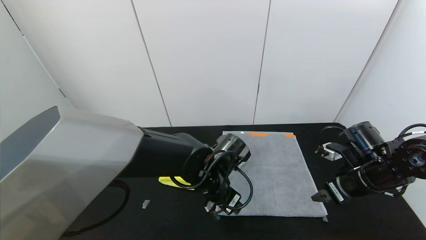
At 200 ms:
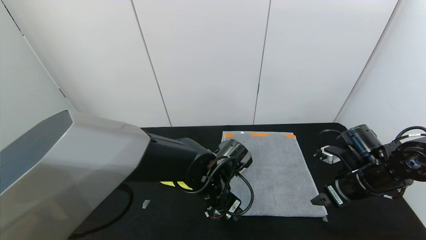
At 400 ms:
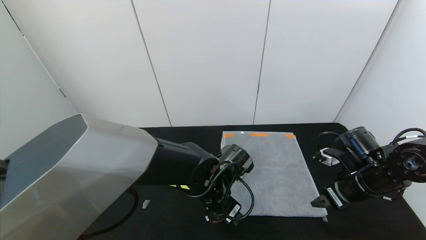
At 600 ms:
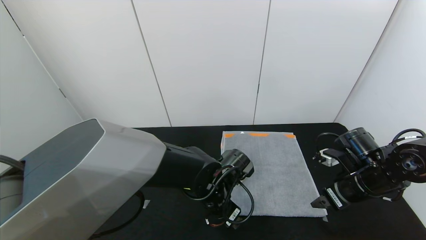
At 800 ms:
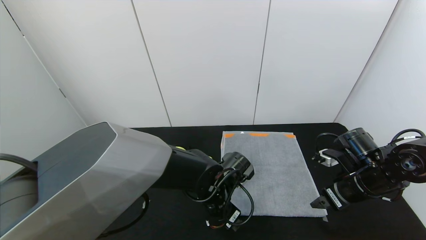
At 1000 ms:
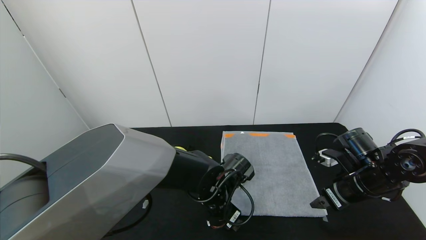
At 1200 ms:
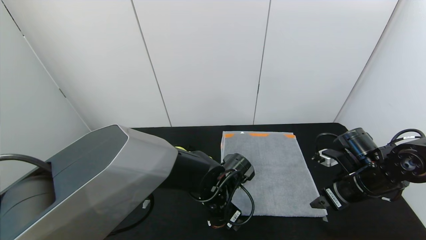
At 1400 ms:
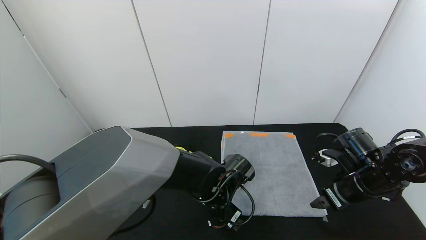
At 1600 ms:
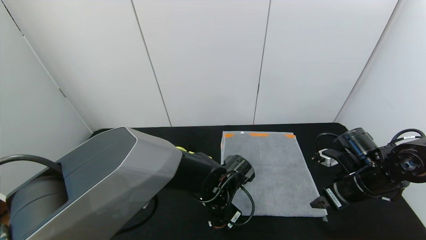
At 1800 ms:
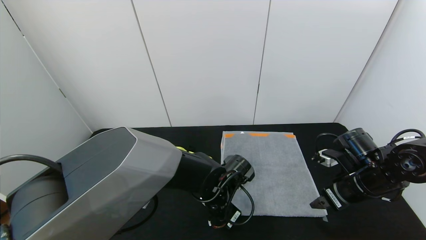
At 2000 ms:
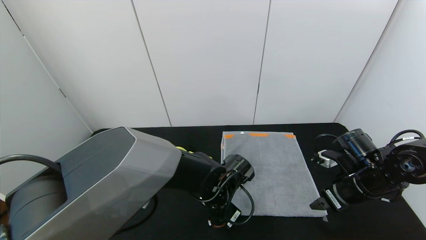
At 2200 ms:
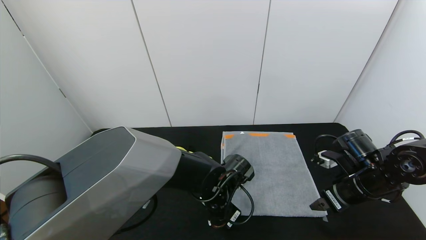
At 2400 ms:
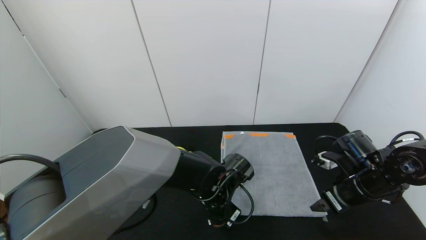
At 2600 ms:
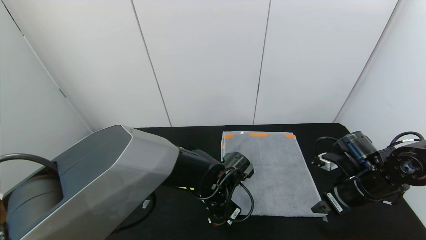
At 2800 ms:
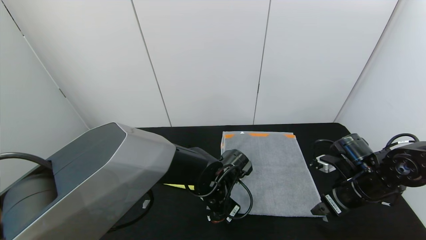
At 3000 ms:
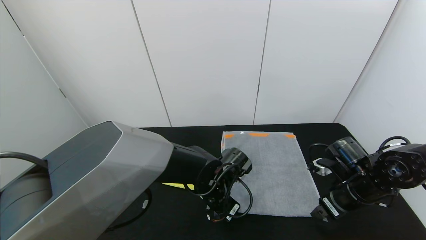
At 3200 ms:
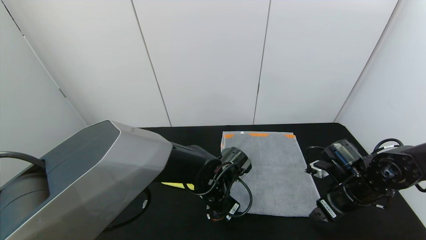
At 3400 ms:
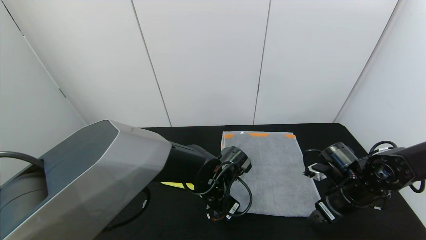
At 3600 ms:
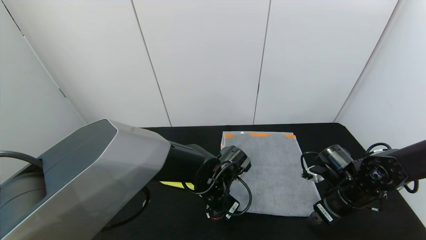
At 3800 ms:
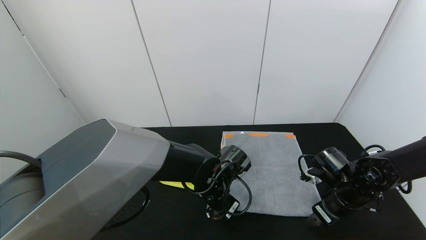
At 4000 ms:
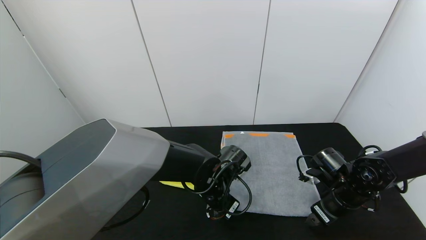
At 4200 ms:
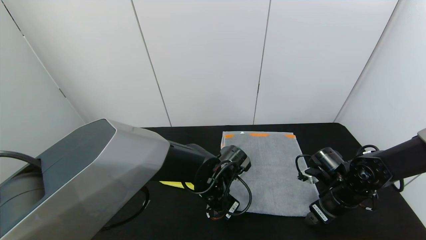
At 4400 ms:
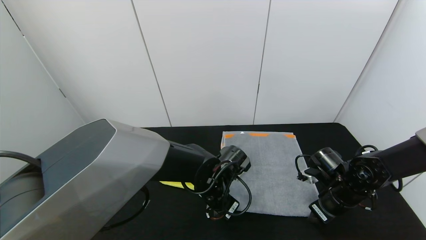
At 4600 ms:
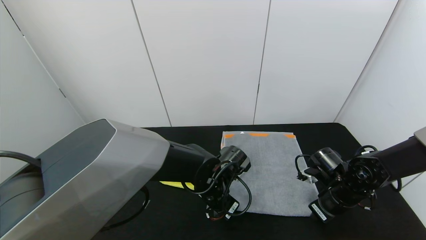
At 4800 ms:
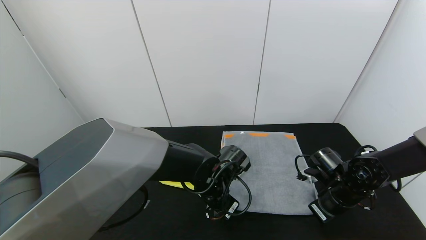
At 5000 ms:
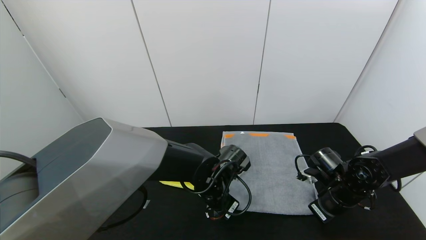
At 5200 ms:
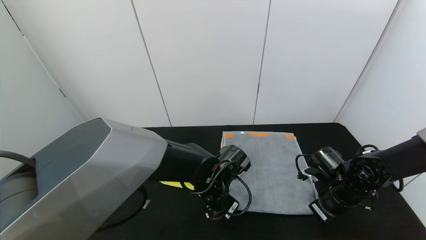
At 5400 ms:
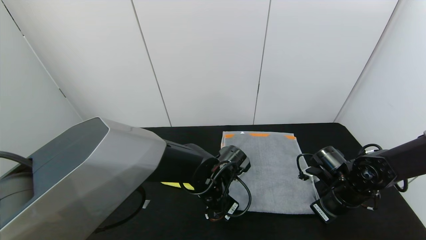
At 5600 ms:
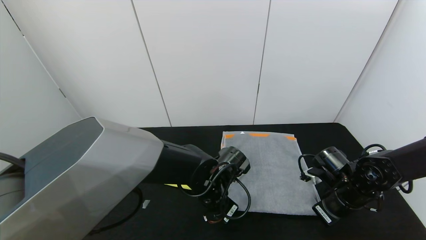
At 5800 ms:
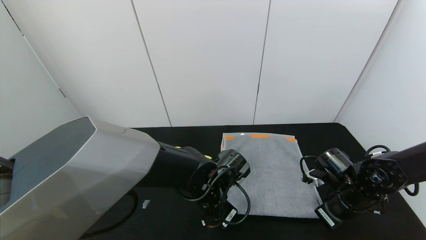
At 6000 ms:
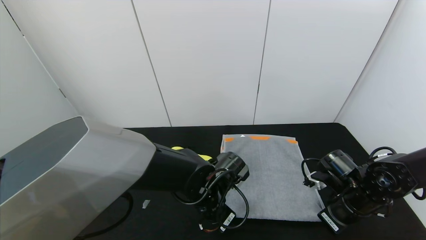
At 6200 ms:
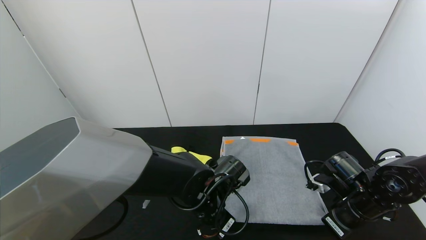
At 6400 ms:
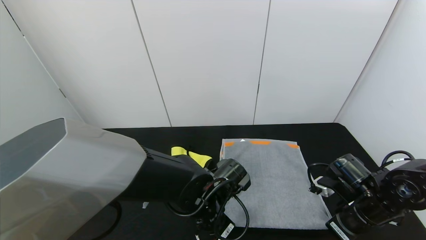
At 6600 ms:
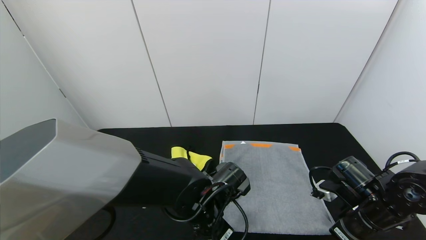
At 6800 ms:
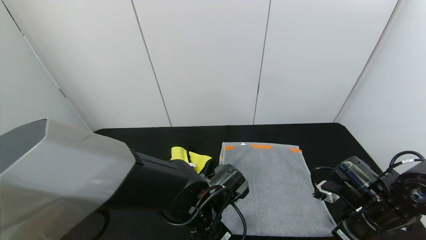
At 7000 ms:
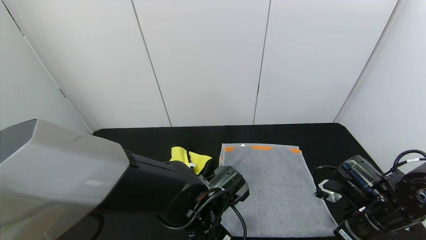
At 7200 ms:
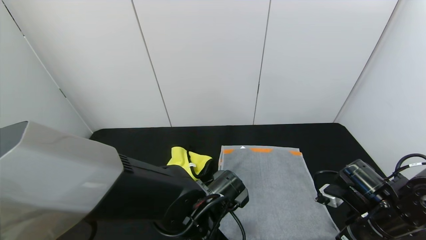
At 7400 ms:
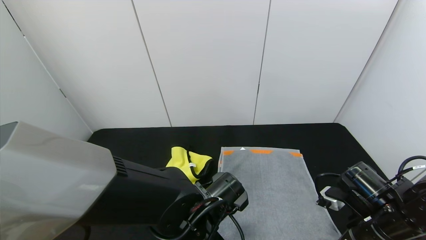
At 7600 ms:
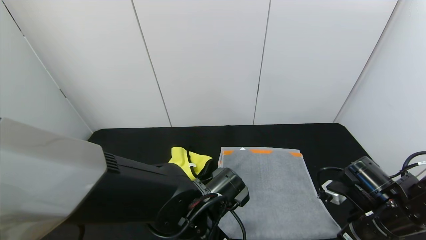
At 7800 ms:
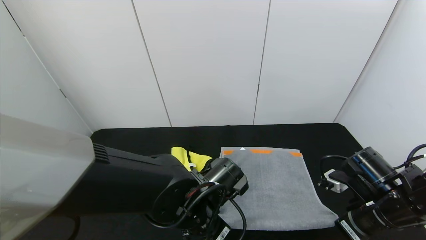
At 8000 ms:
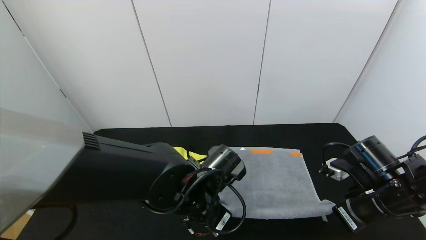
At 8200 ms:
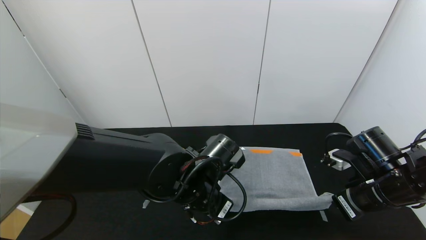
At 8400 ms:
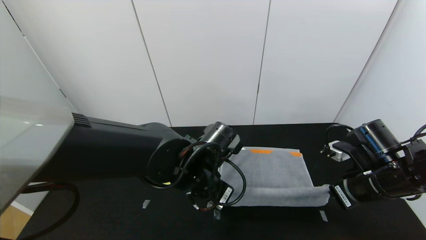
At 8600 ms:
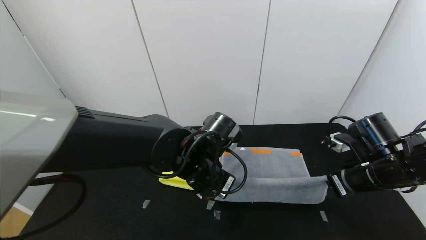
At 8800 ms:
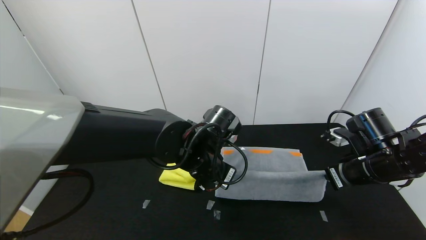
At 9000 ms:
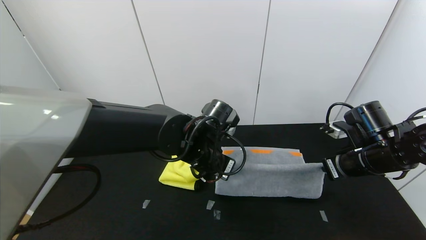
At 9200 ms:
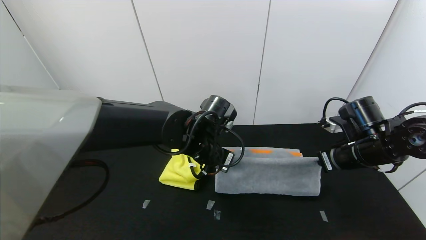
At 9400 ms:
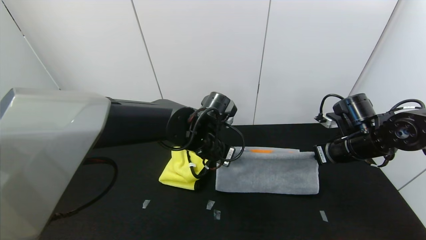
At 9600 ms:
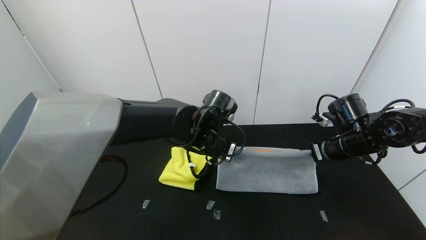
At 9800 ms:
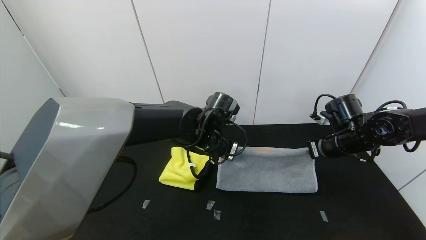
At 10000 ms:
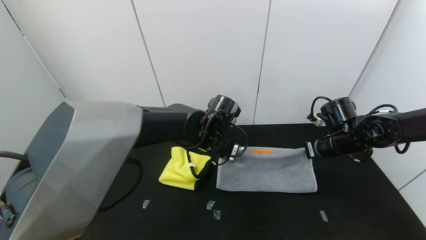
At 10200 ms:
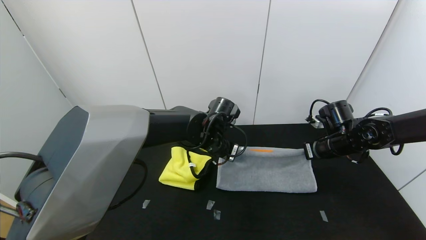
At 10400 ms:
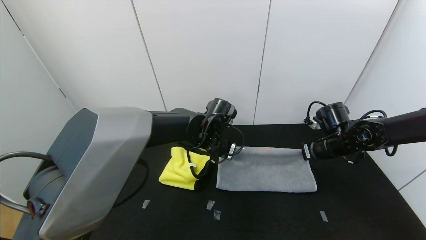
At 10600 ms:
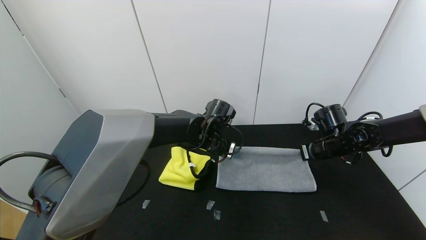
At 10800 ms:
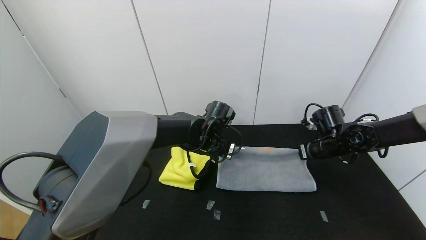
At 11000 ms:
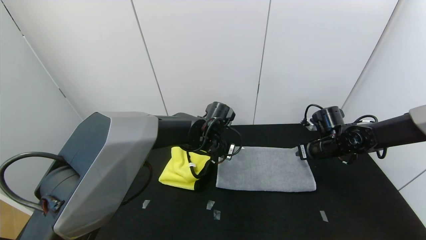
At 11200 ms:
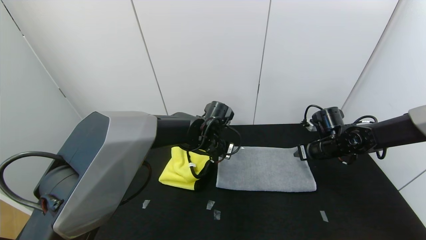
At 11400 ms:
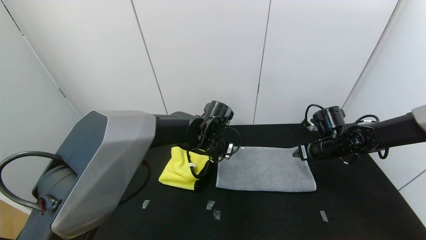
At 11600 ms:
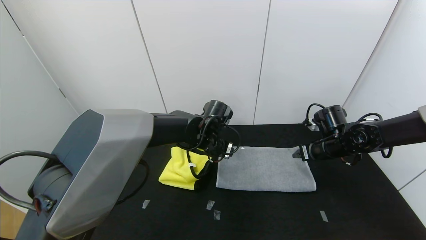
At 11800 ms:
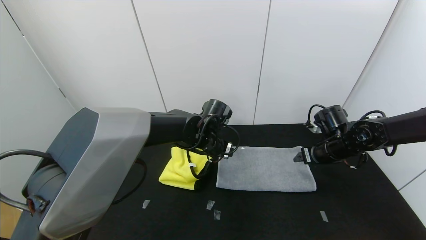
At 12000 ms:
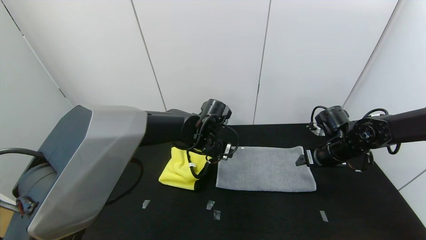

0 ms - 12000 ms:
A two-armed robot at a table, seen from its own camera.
Task of the whole recording: Use the gripper to fold the yellow towel and grey towel in half twice,then put the yellow towel on the grey towel.
0 ms - 1600 ms: The left gripper moves downward, roughly 5 cm.
1600 ms - 3000 ms: The left gripper closes up.
3000 ms - 4400 ms: There are only small adjustments of the grippers.
4400 ms - 6000 ms: The right gripper closes up.
6000 ms - 7600 ms: Both grippers travel together backward, approximately 5 cm.
7600 ms - 9000 ms: The two grippers go some 10 cm forward and upward.
9000 ms - 10400 ms: The grippers both shift forward by approximately 10 cm.
10400 ms - 12000 ms: The left gripper opens up; the right gripper opens its fingers.

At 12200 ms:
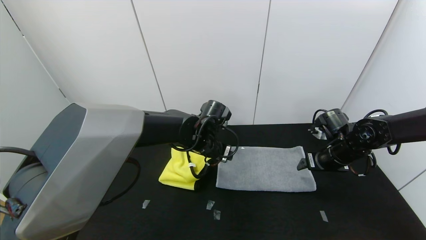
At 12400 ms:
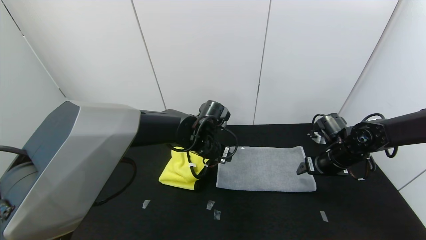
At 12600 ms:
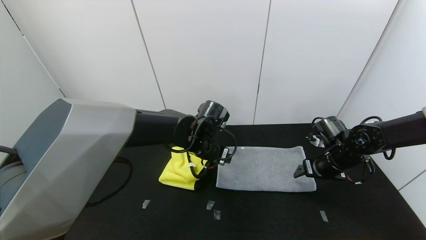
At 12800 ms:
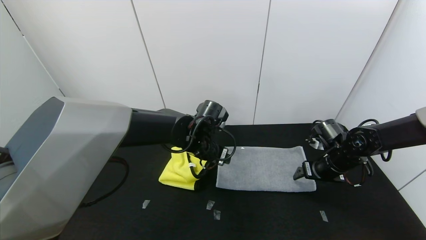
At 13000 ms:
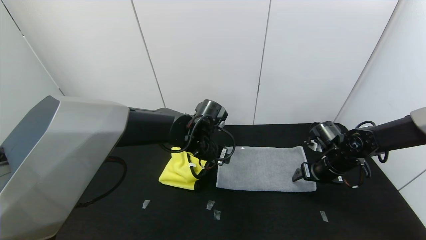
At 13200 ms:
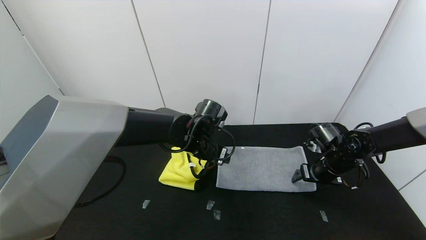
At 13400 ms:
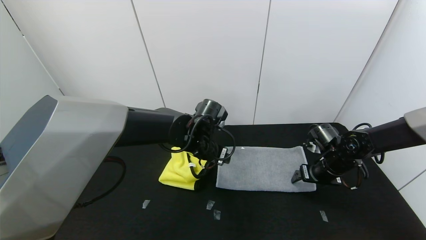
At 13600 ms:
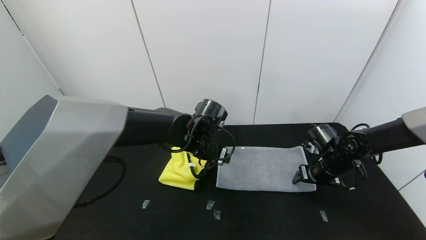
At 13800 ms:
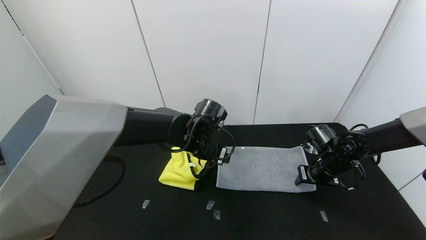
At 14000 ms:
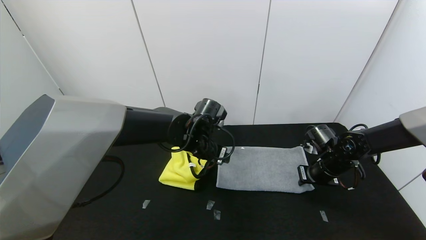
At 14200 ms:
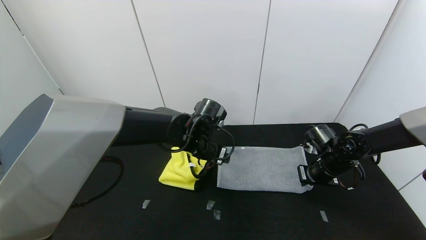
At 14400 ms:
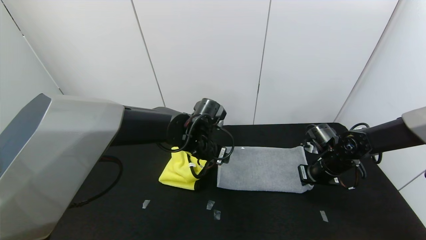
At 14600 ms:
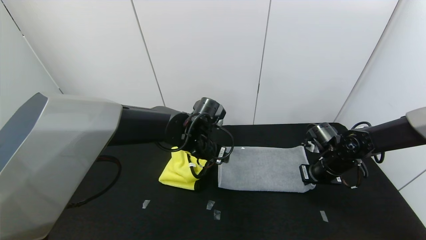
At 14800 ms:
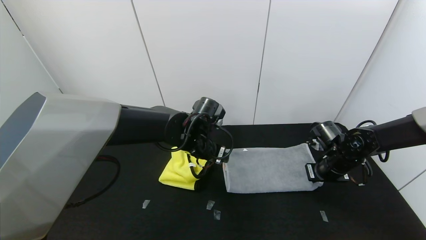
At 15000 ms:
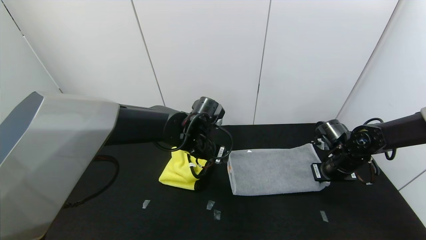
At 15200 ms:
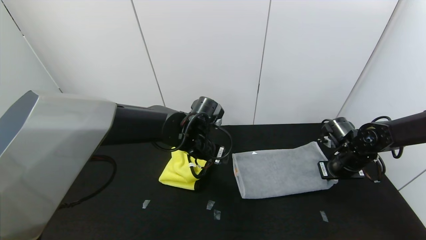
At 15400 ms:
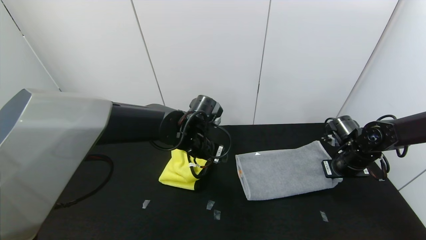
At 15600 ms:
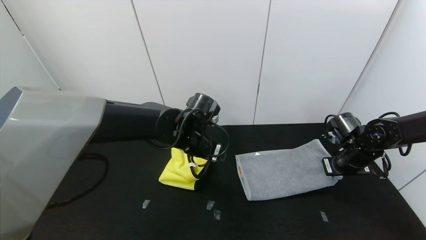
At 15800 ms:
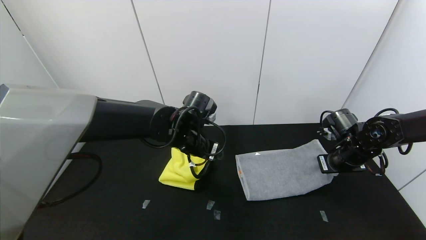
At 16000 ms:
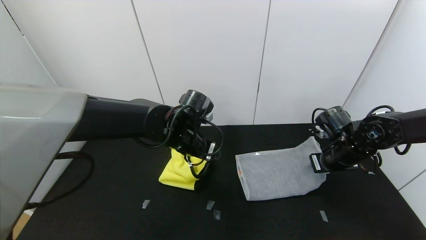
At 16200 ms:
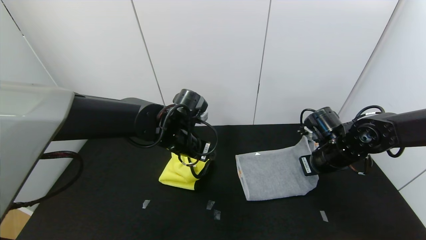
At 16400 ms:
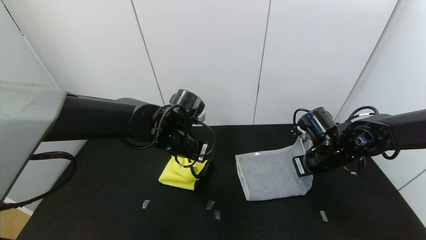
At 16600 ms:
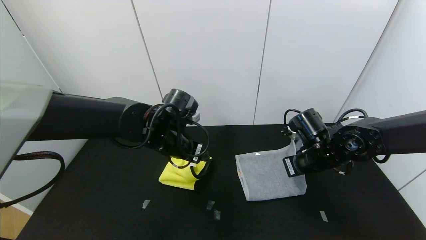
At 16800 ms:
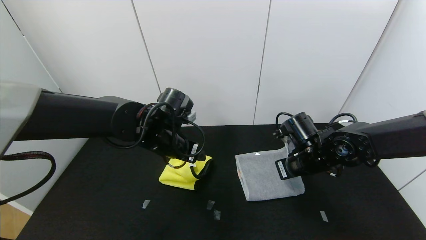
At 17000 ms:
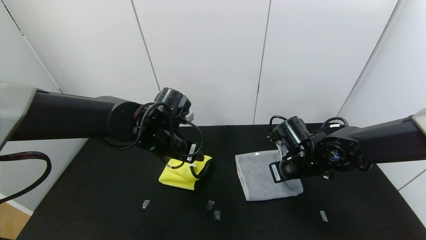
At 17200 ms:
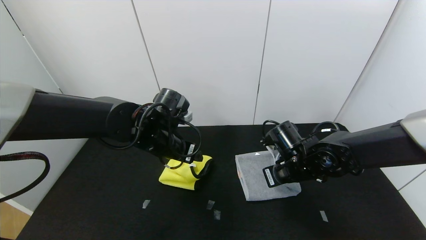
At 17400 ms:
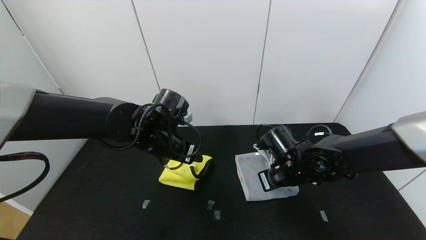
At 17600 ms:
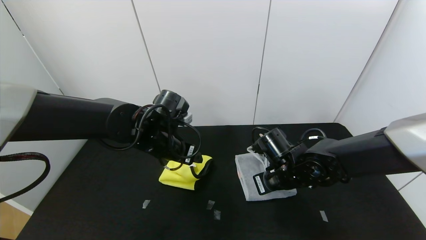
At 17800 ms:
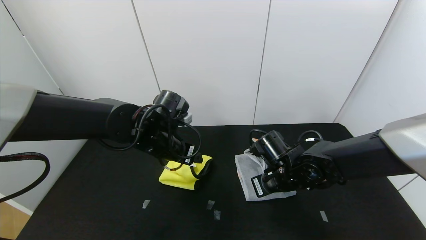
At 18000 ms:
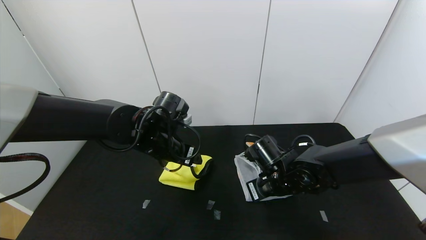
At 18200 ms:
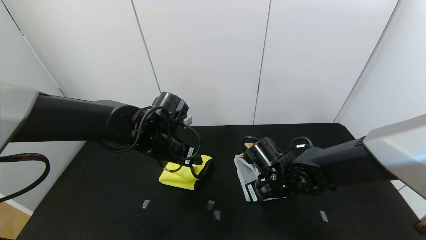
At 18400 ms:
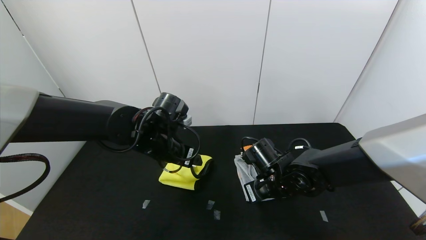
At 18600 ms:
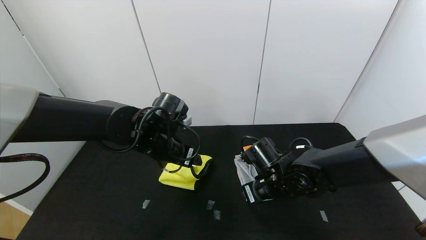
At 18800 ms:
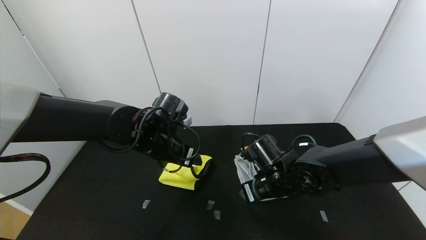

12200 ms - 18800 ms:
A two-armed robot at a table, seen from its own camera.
Task of the whole recording: Use the gripper to fold the yellow towel and grey towel in half twice,then put the yellow towel on the grey towel.
12200 ms - 13800 ms: The right gripper closes its fingers.
13800 ms - 15400 ms: The right gripper ends up about 5 cm from where it was, and closes.
15400 ms - 17200 ms: The left gripper is displaced to the left by roughly 5 cm, while the right gripper is displaced to the left by some 15 cm.
17200 ms - 18800 ms: The right gripper opens.
